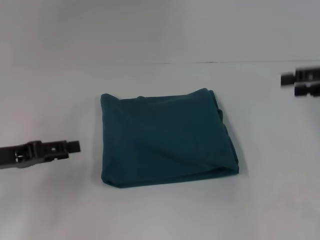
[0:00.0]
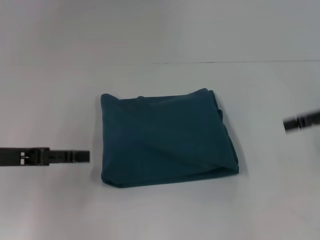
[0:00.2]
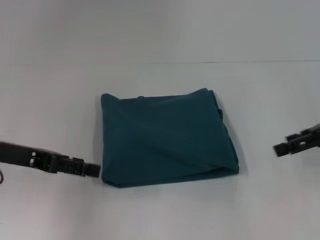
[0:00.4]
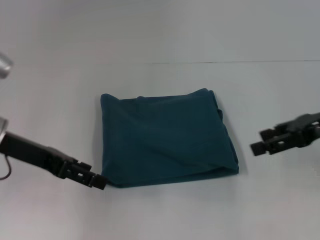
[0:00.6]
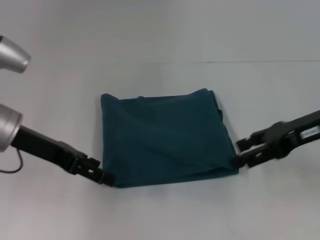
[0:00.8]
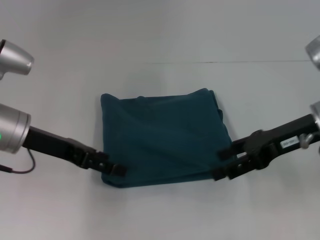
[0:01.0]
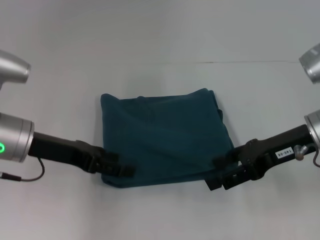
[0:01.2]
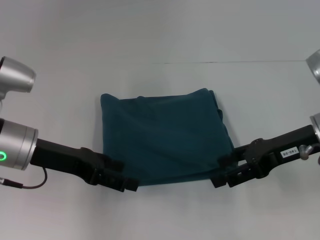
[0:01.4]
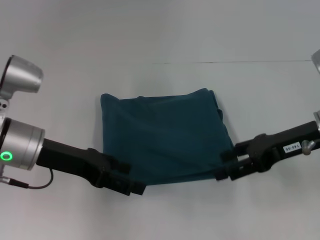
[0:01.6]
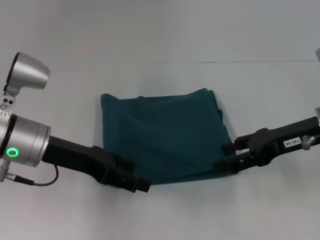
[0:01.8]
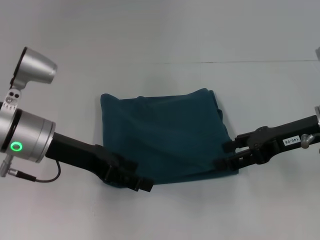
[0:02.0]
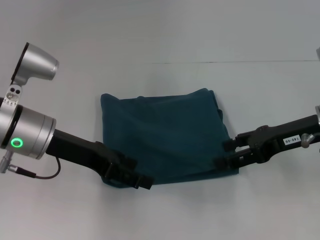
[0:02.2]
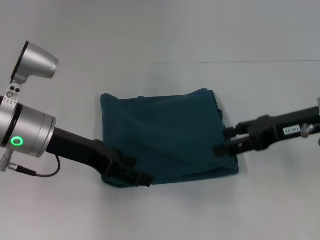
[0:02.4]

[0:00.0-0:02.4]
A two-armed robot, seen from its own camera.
0:00.0 to 0:01.2: The left gripper travels to the right by some 10 cm, and opens, while the right gripper goes about 15 cm to the left and downward.
0:01.2 to 0:02.4: The grippers stay close to where they were, moving slightly.

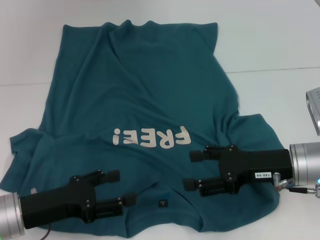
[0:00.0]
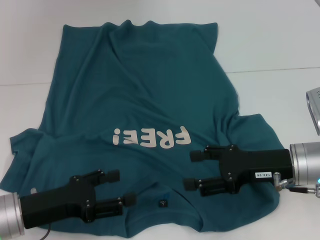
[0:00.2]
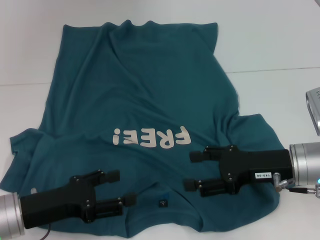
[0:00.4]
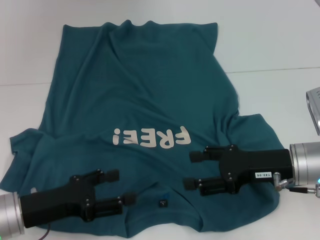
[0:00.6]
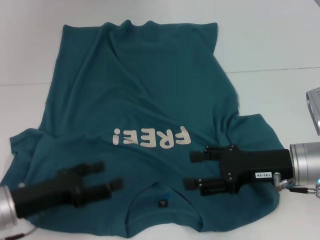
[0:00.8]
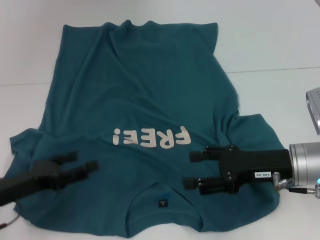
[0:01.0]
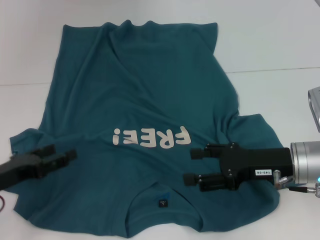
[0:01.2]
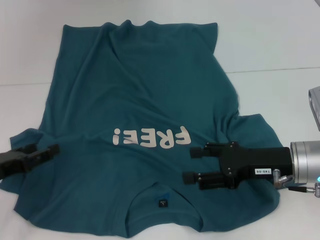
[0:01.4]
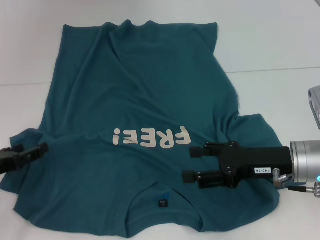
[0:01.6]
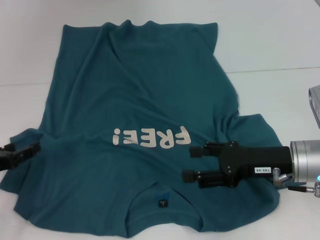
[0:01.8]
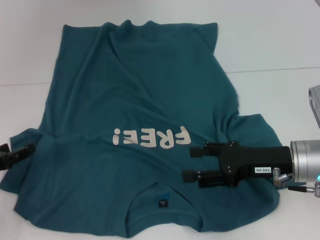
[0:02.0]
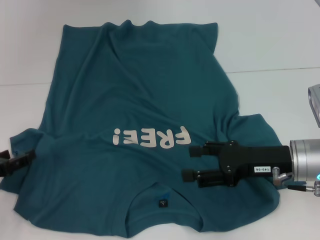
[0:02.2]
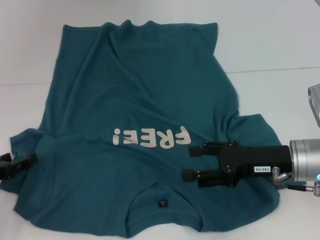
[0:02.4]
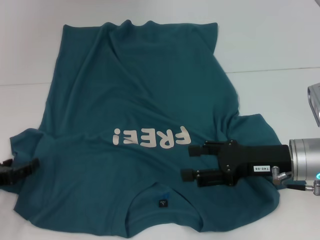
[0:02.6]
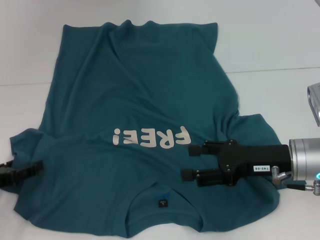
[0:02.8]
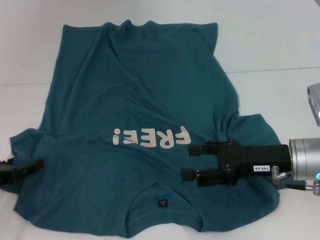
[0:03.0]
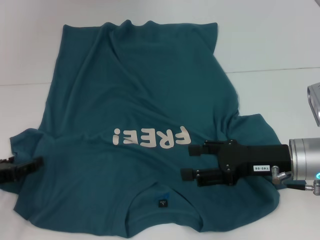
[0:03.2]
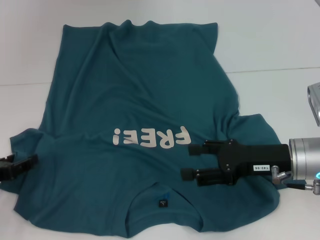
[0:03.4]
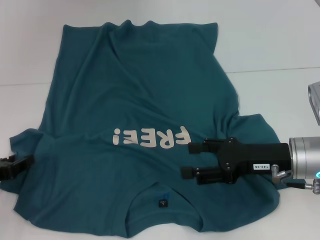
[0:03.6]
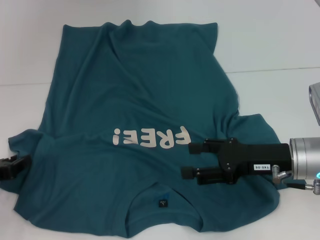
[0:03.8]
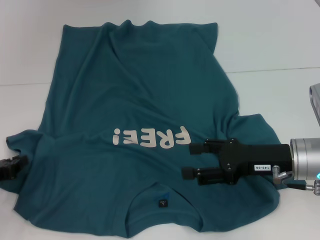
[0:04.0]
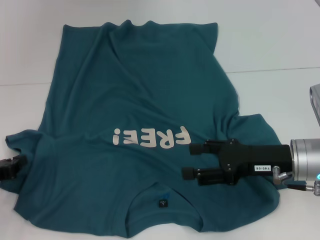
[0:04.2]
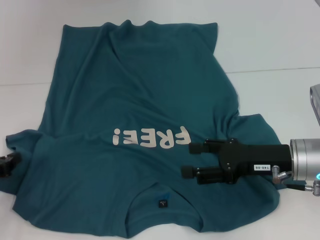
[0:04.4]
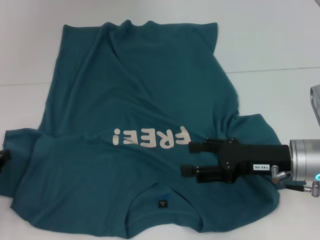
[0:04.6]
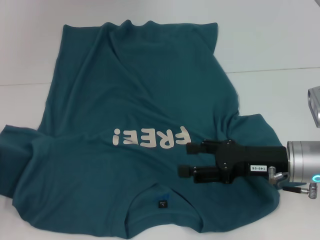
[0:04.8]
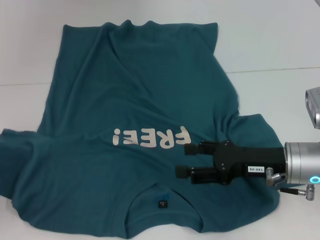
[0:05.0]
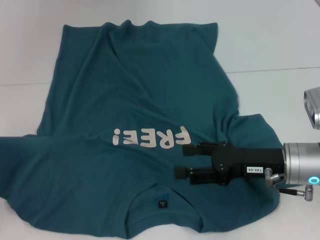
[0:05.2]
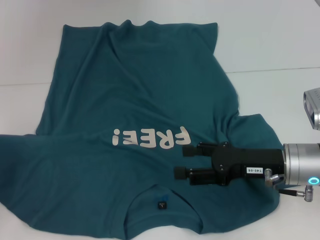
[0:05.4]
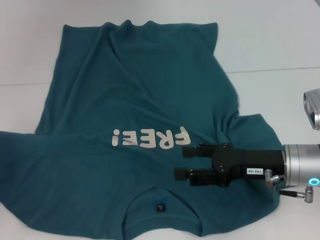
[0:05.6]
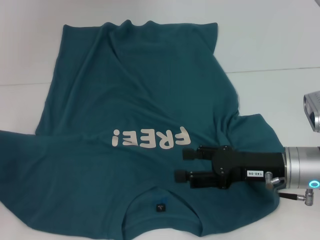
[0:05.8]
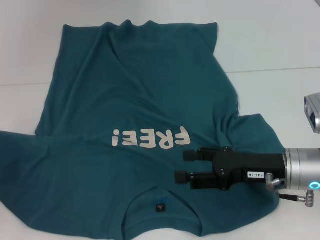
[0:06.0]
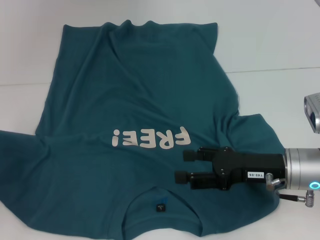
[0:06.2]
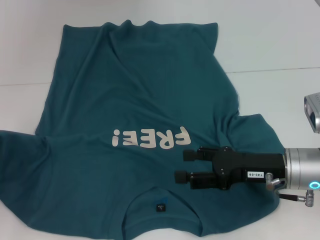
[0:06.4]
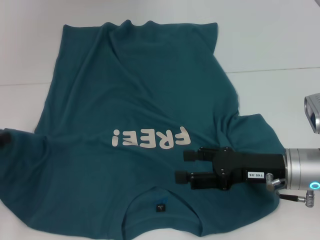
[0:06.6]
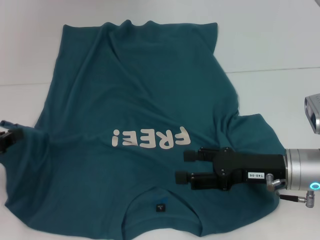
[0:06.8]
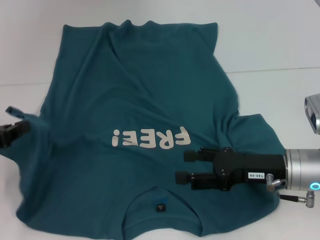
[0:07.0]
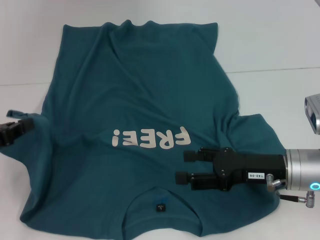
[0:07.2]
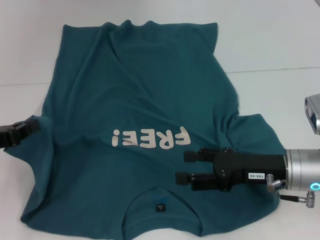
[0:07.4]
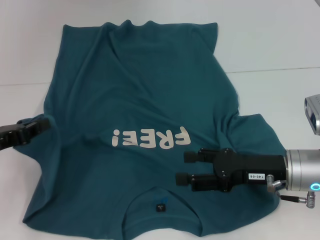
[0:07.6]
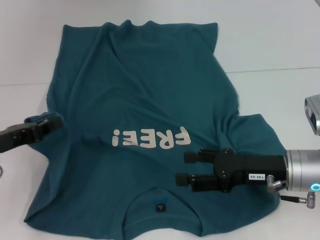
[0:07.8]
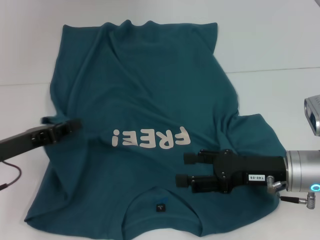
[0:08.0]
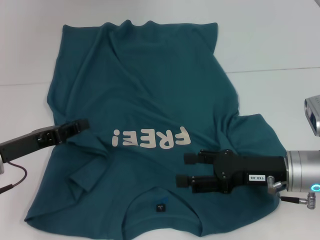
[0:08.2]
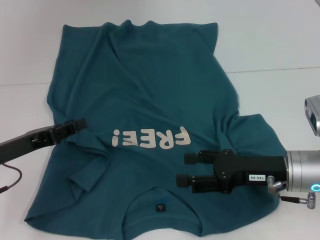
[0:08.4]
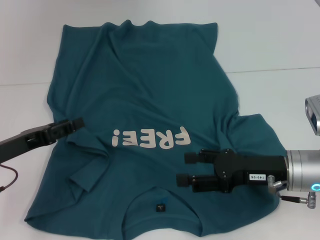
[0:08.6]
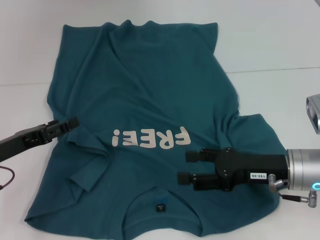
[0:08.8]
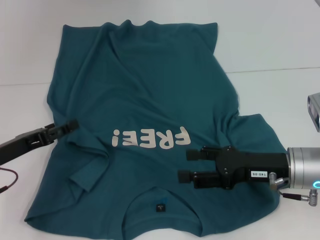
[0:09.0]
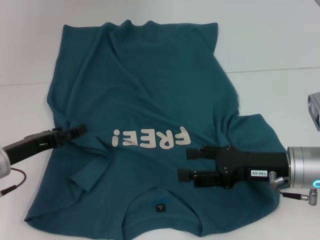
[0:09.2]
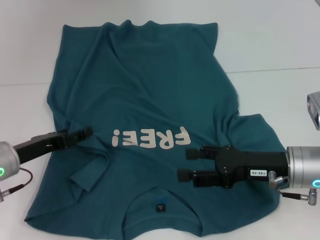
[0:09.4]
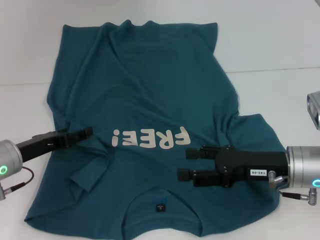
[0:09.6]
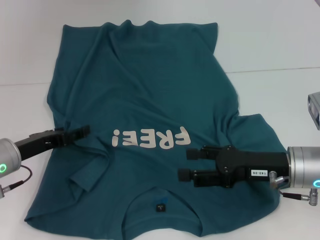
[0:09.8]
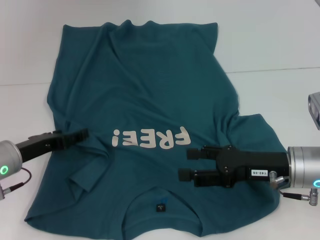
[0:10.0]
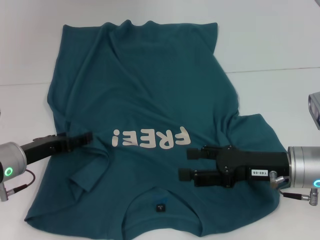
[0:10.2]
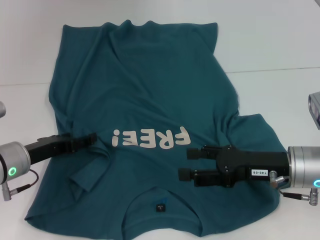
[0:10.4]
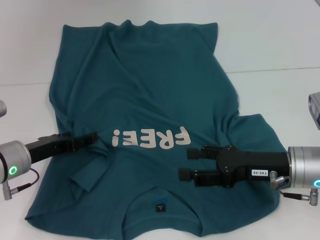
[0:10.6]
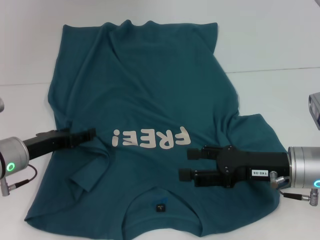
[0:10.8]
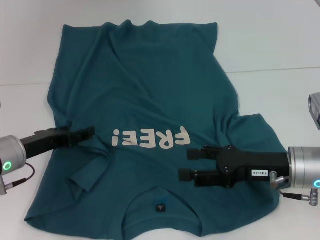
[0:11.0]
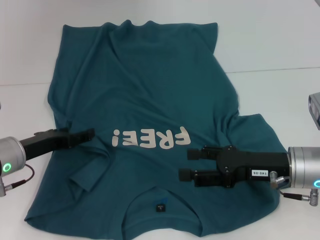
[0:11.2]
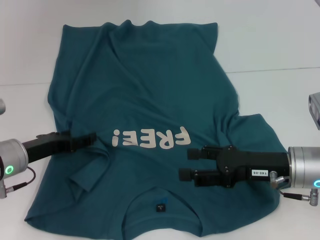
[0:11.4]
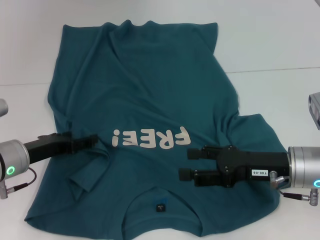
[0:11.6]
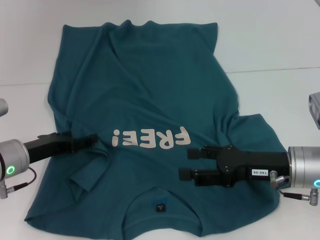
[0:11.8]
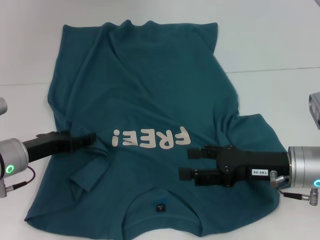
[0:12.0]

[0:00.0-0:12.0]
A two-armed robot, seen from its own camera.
0:00.0 to 0:01.6: The left gripper travels to the left by about 10 cm.
0:01.6 to 0:03.0: The grippers move only a little.
0:03.0 to 0:04.4: The left gripper closes up.
0:04.4 to 0:06.0: The left gripper moves about 5 cm.
0:06.0 to 0:07.6: The left gripper moves to the right, about 5 cm.
0:07.6 to 0:09.0: The left gripper opens its fingers.
0:09.0 to 0:10.4: The left gripper moves roughly 5 cm.
0:10.4 to 0:12.0: The two grippers keep their place.

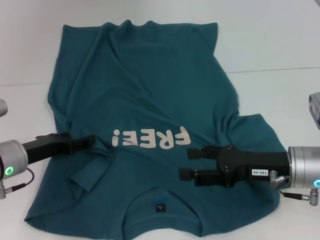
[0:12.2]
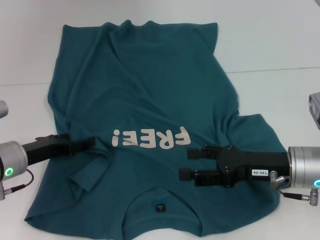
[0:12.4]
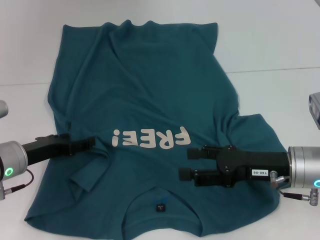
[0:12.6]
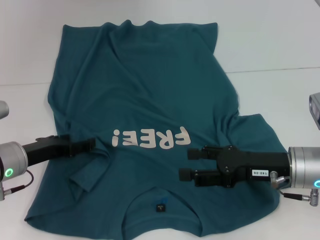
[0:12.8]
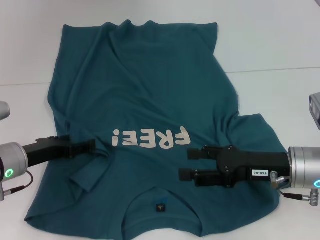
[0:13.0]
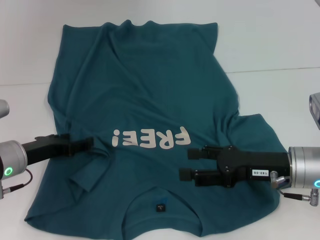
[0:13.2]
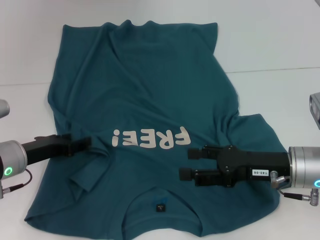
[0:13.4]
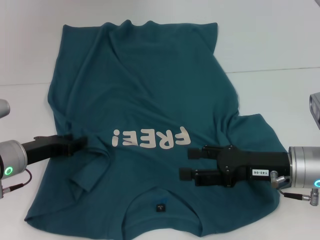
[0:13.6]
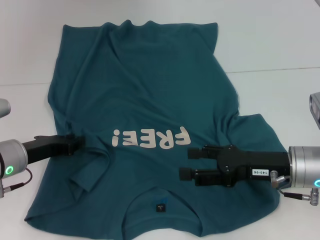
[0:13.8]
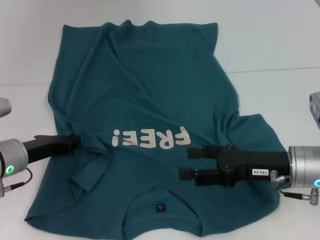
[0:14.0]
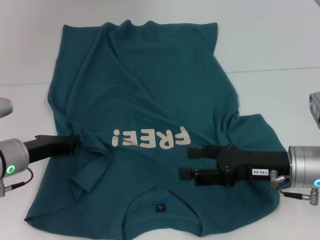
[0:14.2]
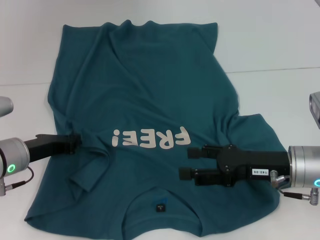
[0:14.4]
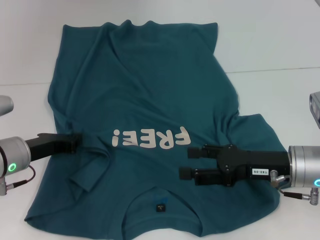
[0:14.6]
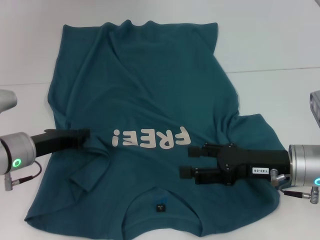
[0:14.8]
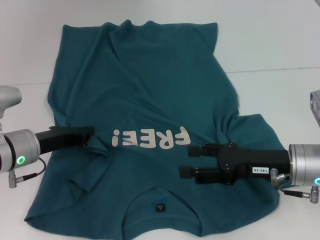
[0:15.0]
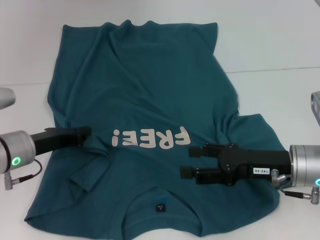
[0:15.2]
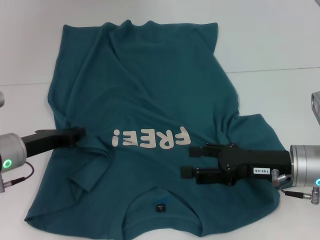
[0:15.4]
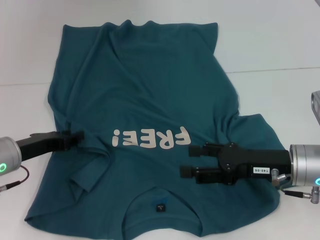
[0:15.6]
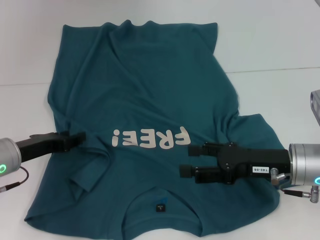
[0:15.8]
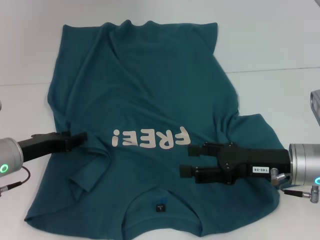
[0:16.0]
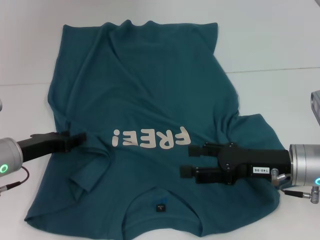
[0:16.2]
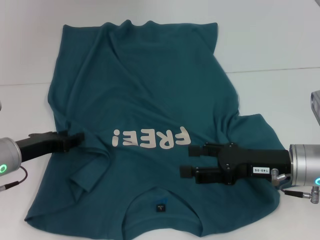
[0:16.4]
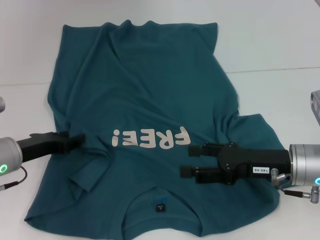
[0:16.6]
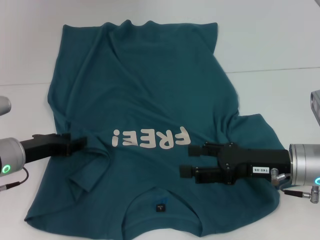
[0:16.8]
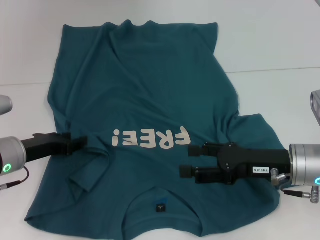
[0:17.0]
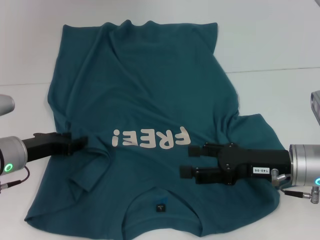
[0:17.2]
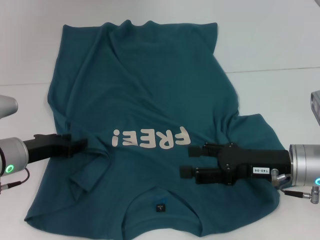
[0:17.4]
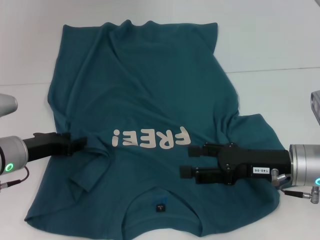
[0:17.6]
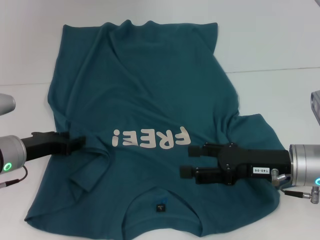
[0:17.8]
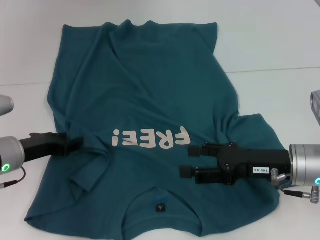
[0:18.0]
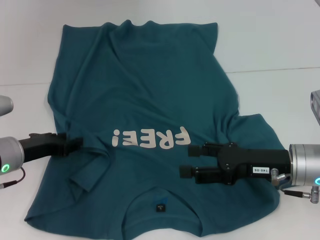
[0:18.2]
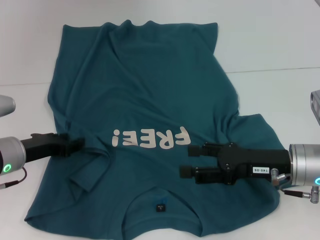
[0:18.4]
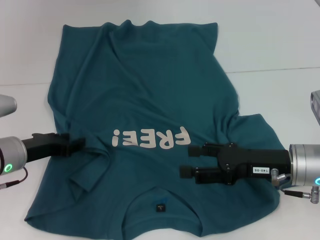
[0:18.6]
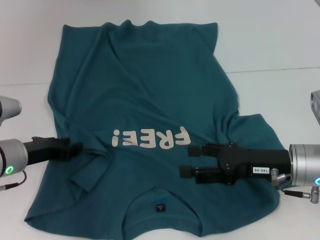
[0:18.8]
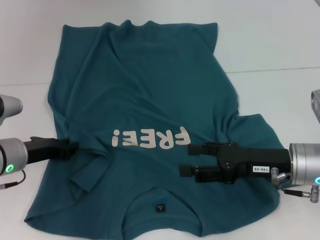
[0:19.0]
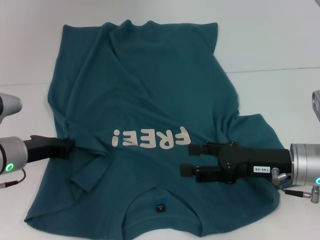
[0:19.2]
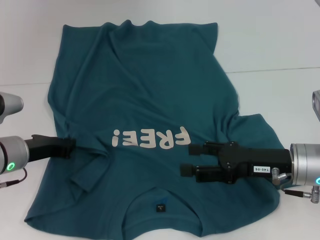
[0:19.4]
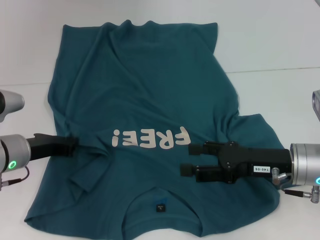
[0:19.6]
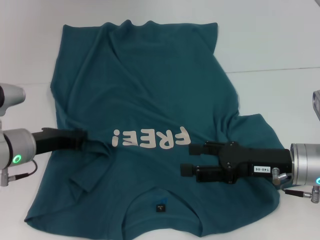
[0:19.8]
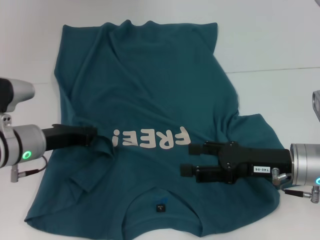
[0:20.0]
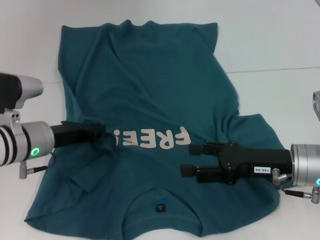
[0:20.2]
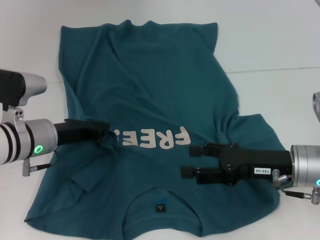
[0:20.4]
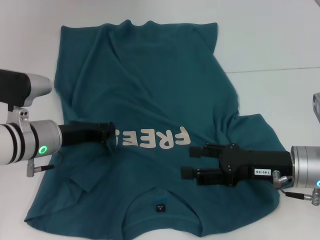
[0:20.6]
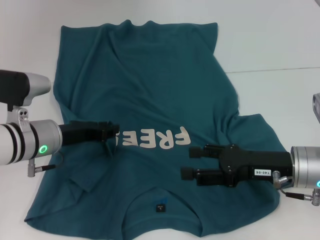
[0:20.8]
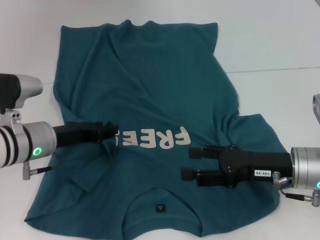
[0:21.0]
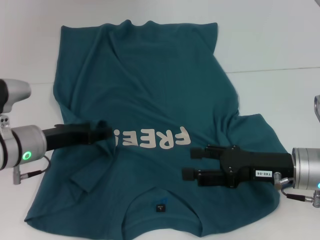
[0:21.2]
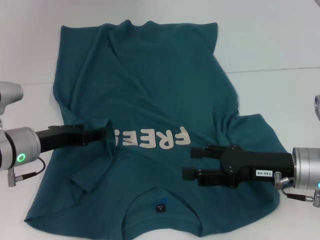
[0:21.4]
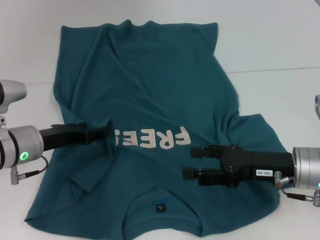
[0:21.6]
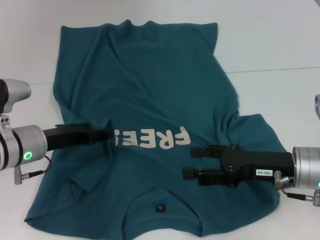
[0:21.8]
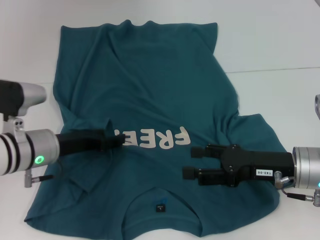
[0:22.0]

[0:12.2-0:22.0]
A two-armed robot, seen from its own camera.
0:12.2 to 0:13.6: Both grippers stay put.
0:13.6 to 0:15.0: The left gripper closes up.
0:15.0 to 0:16.4: The left gripper opens its fingers.
0:16.4 to 0:19.2: The grippers stay close to where they were, moving slightly.
0:19.2 to 0:20.6: The left gripper changes place by about 5 cm.
0:20.6 to 0:22.0: The left gripper opens.
